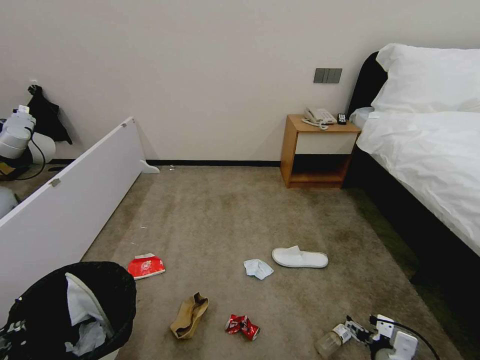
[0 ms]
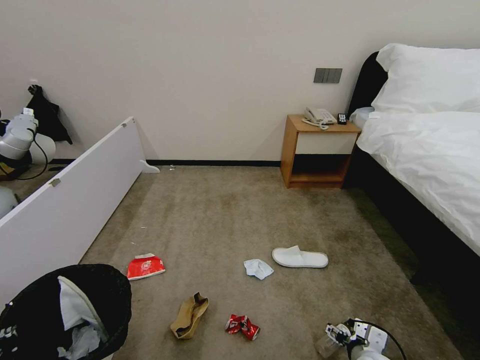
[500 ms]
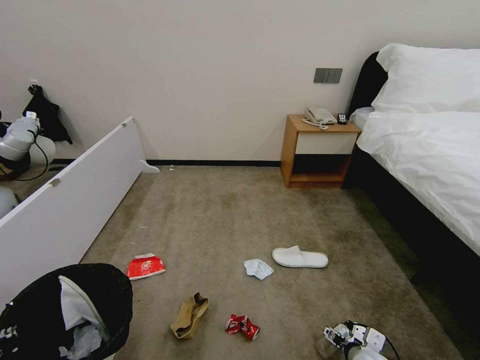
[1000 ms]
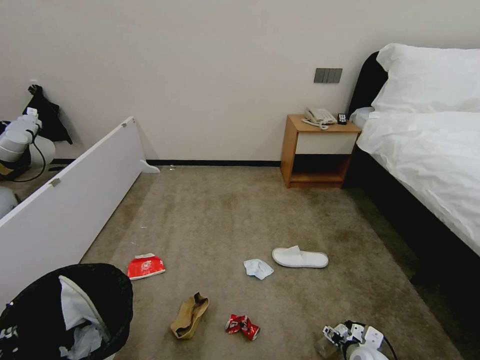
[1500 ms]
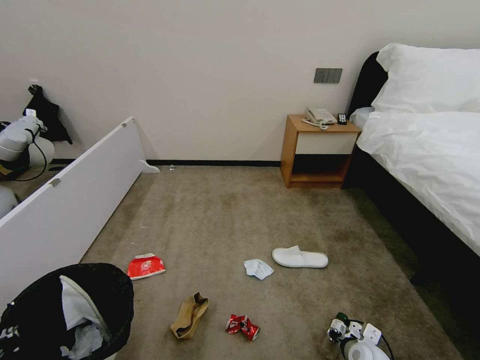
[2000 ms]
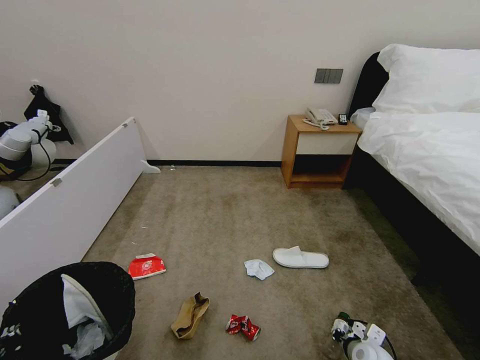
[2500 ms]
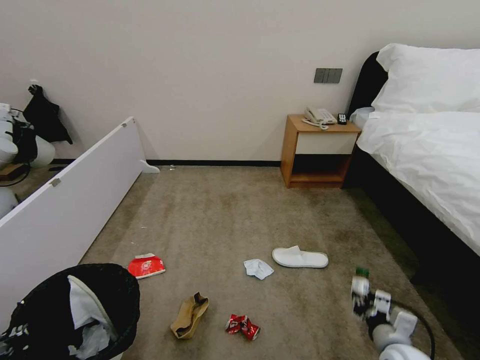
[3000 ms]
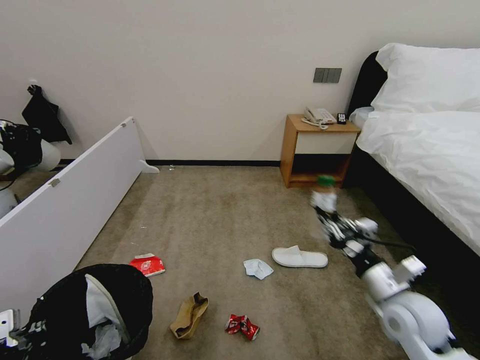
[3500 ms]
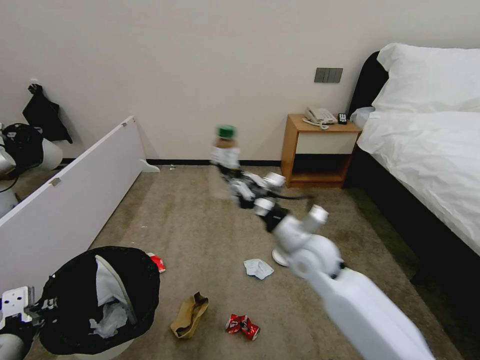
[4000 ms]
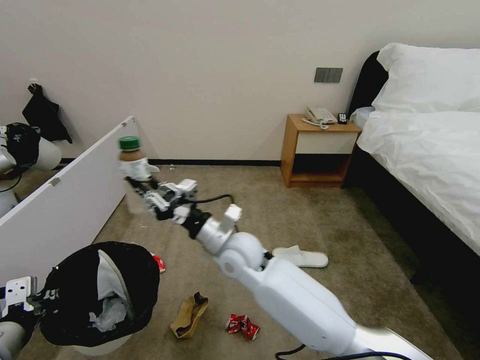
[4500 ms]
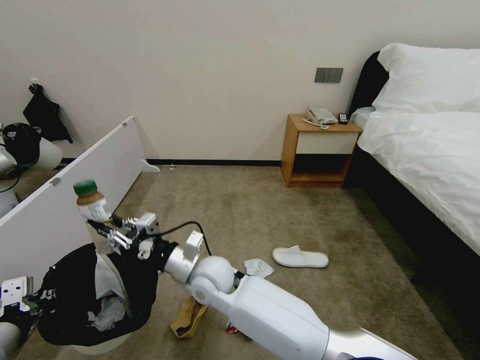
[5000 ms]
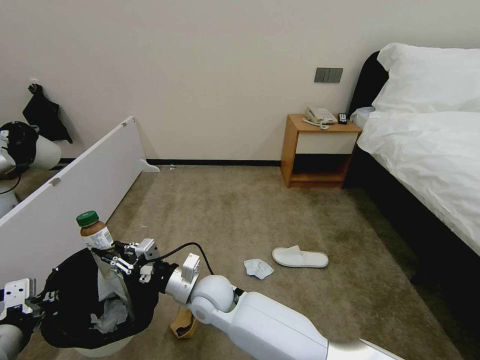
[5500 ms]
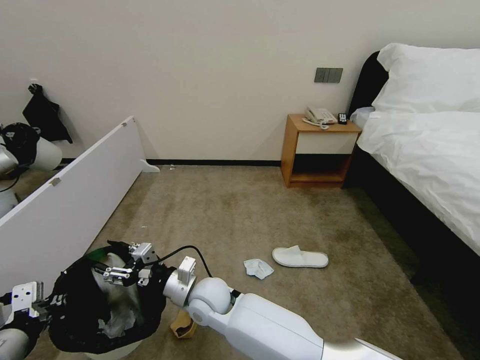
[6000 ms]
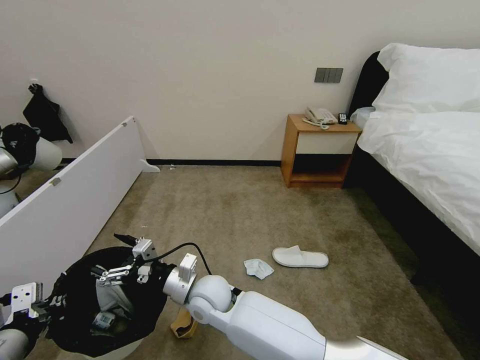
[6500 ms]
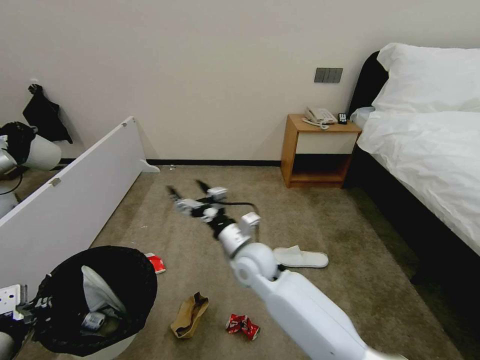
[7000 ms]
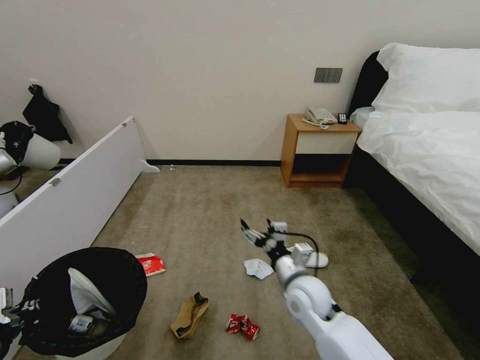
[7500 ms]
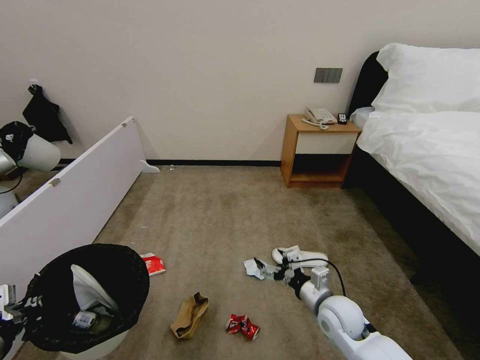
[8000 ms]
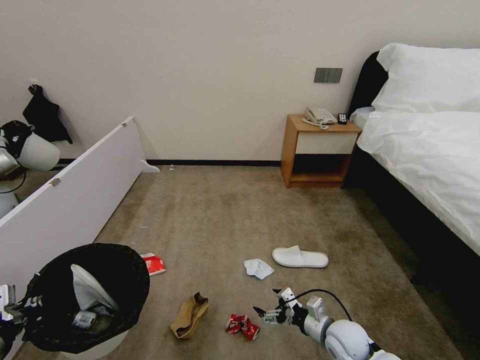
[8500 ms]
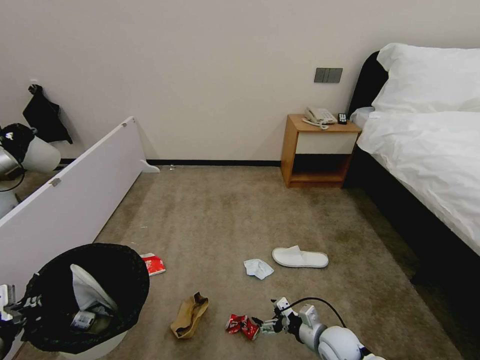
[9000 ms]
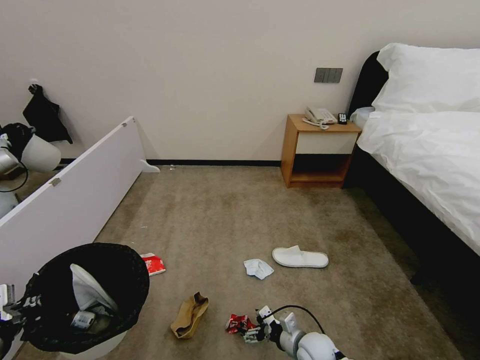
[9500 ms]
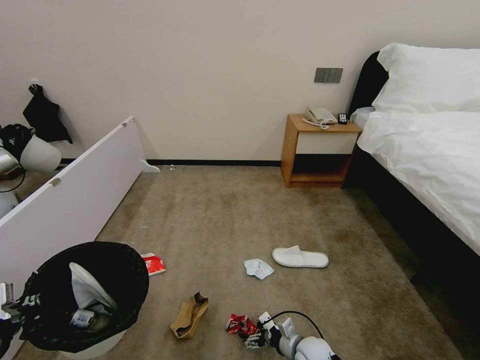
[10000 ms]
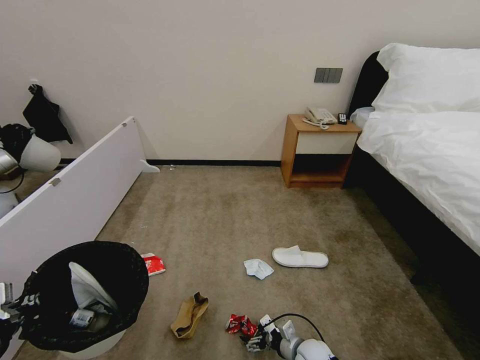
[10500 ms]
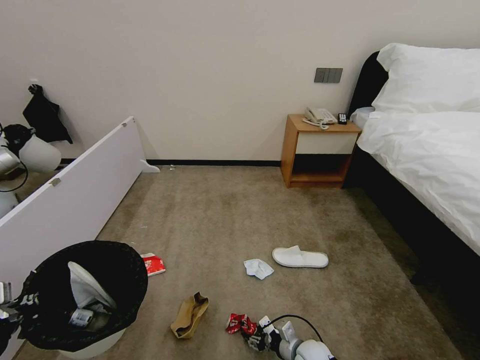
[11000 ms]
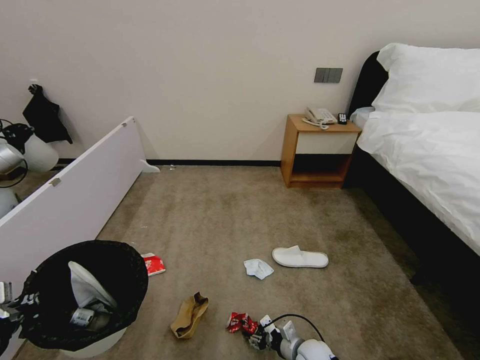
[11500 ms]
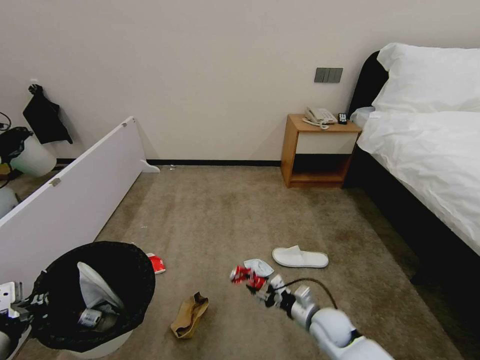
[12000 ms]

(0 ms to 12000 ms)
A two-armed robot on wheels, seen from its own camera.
Task of the whole recording: Pick up the trash bin, then pick up the garbage from the floor and place it into the trash bin.
0 ms - 2000 ms: The right gripper travels downward and forward by some 10 cm, and closes up.
2000 ms - 4000 ms: The right gripper shifts roughly 35 cm upward, to the left and forward. The left gripper changes place by approximately 5 cm.
4000 ms - 6000 ms: The right gripper travels to the left and downward by about 25 cm, and opens its fingers.
6000 ms - 8000 ms: The right gripper shifts roughly 30 cm to the right.
8000 ms - 10000 ms: The right gripper shifts some 20 cm downward.
10000 ms - 12000 ms: The right gripper moves upward, roughly 10 cm, and closes.

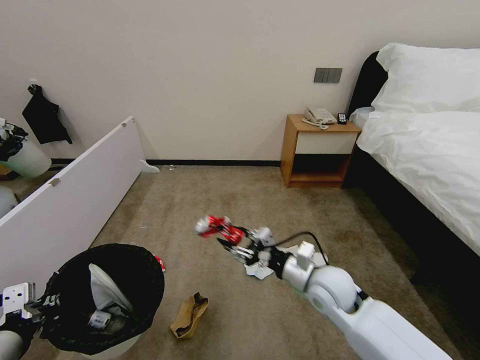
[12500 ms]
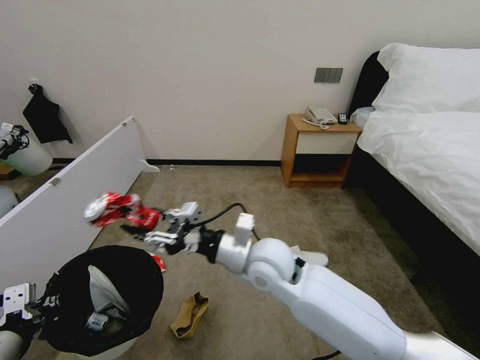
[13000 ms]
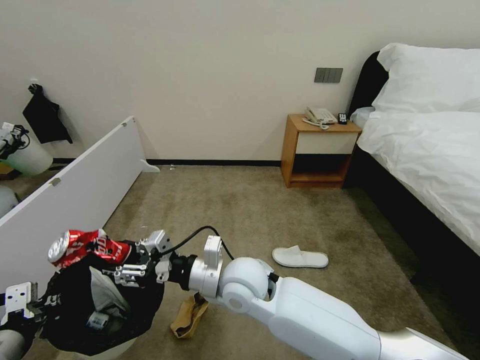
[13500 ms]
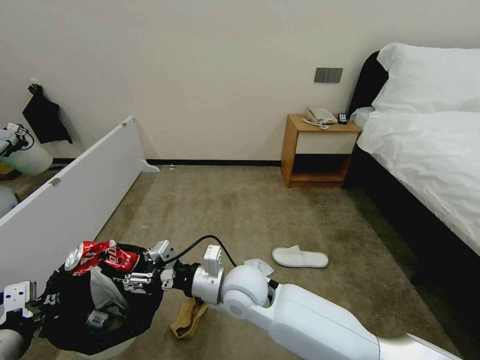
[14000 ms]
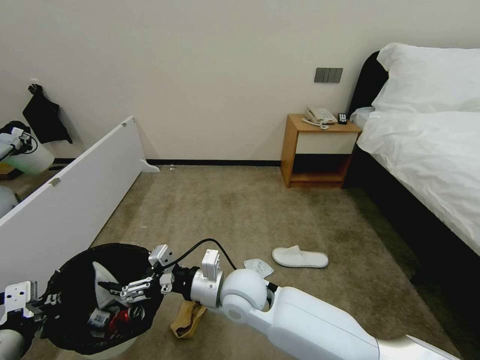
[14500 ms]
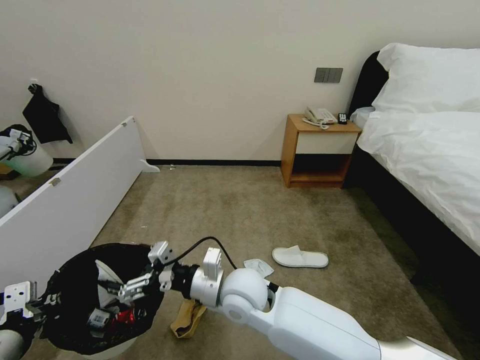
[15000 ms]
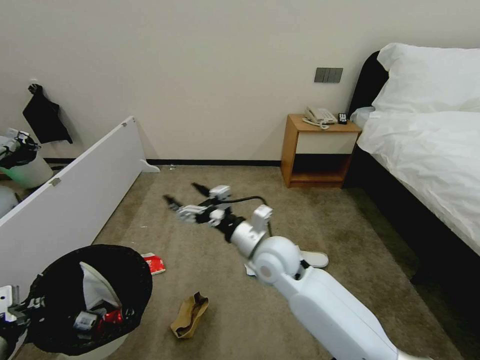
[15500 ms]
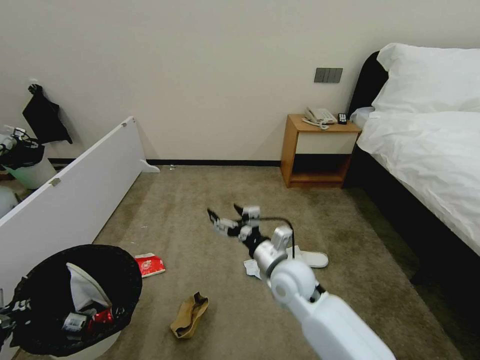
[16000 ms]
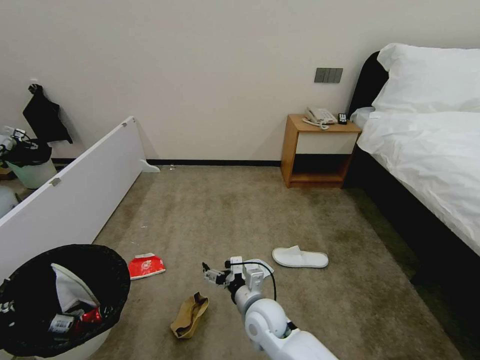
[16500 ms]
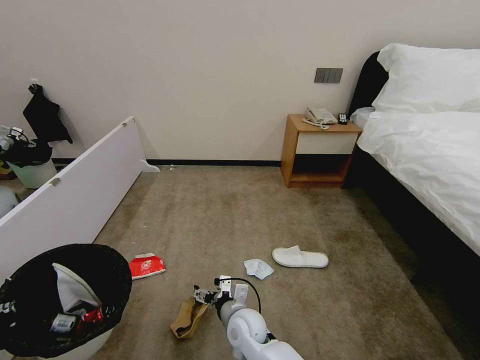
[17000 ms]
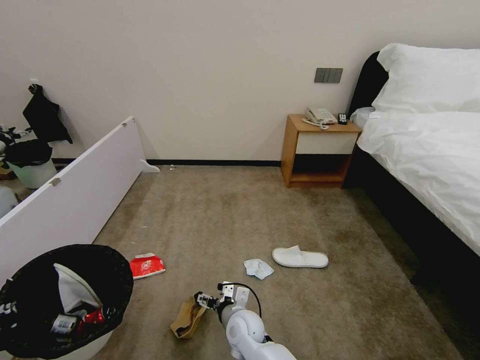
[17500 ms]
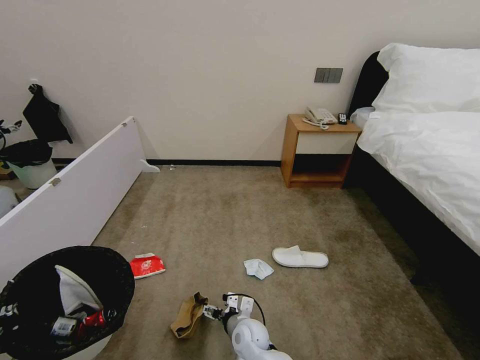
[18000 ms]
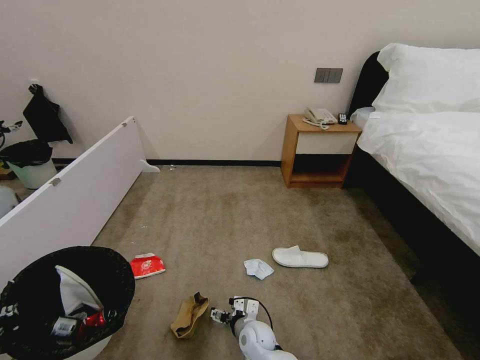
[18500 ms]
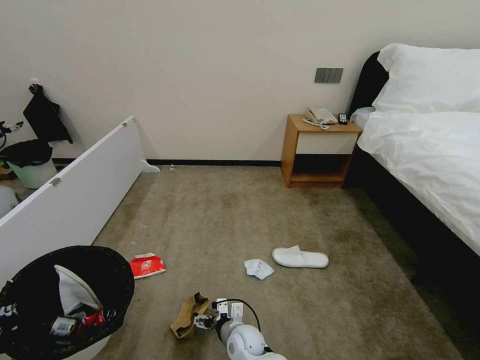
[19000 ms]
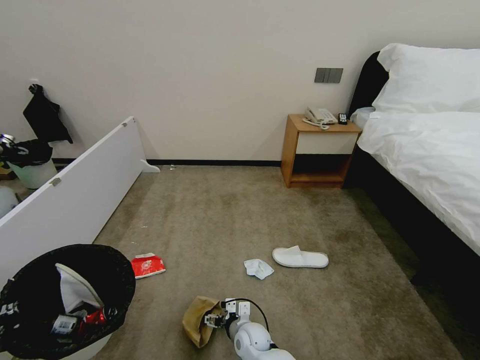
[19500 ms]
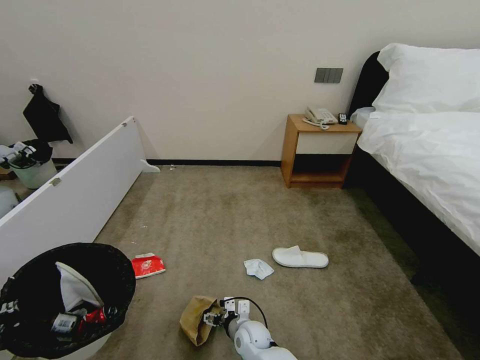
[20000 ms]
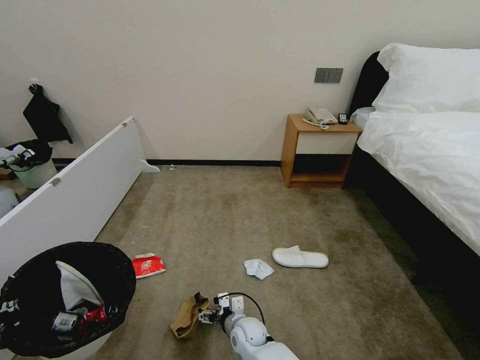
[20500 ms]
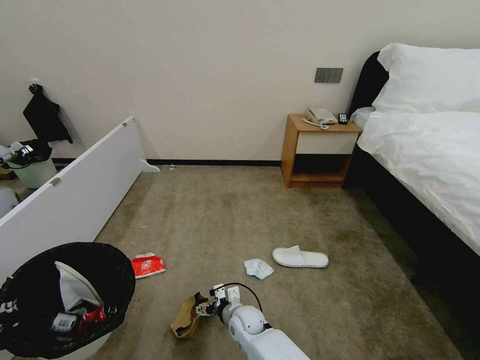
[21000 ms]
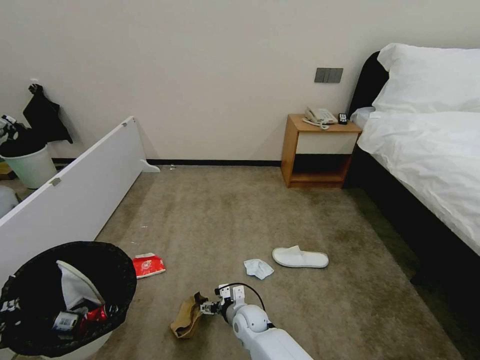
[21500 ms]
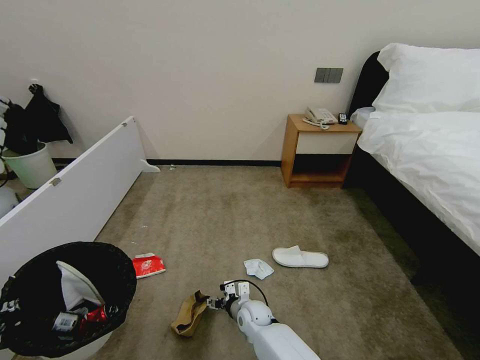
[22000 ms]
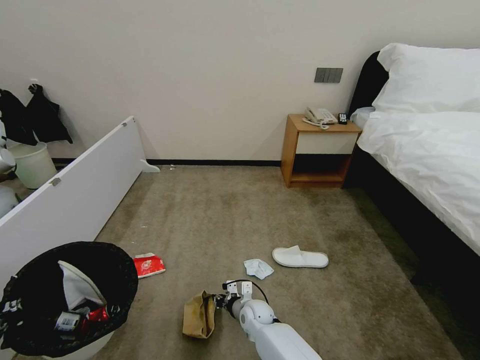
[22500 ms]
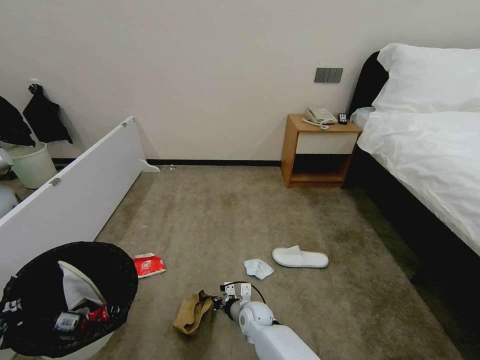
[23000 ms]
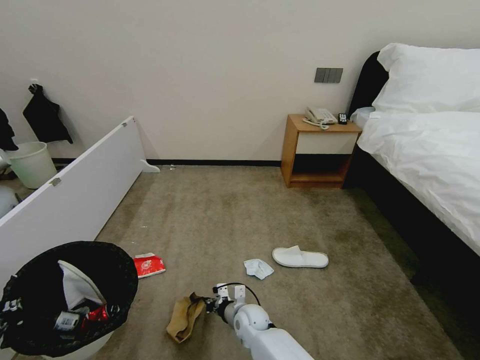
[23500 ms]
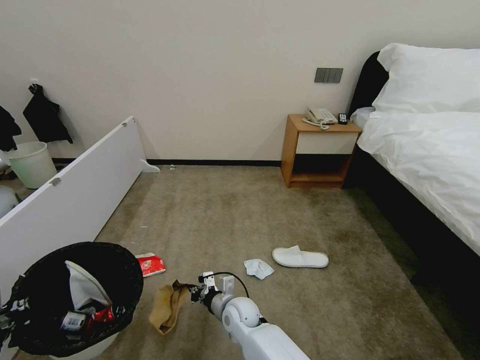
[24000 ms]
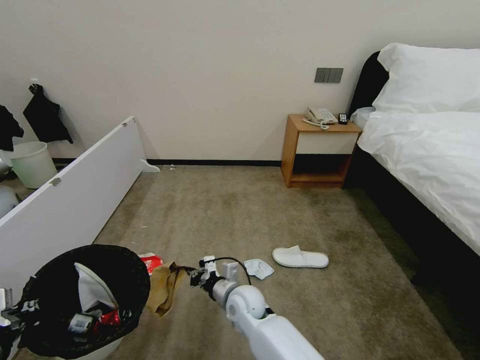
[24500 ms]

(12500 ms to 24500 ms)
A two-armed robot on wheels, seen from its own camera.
Task of the whole recording: Pick up the trash bin, then pick up the garbage from the floor and place it into the trash bin.
12500 ms - 14500 ms: The right gripper moves to the left, roughly 20 cm.
14500 ms - 16500 ms: The right gripper moves downward and to the right, some 15 cm; the left gripper shifts by about 5 cm.
16500 ms - 18500 ms: The right gripper moves downward, approximately 15 cm.
18500 ms - 20500 ms: There are only small adjustments of the grippers.
20500 ms - 22500 ms: The right gripper travels forward by some 5 cm, and closes its fingers.
22500 ms - 24500 ms: The right gripper goes some 15 cm upward.

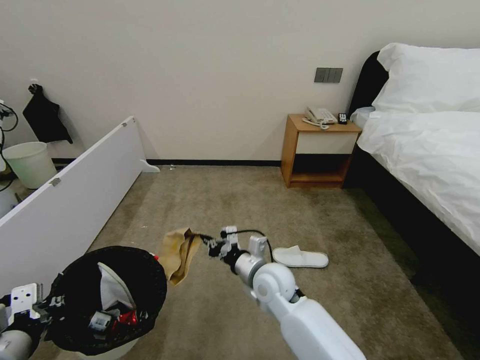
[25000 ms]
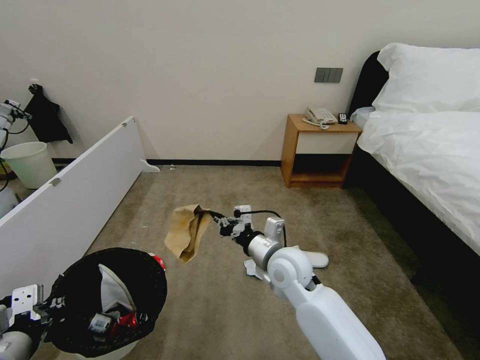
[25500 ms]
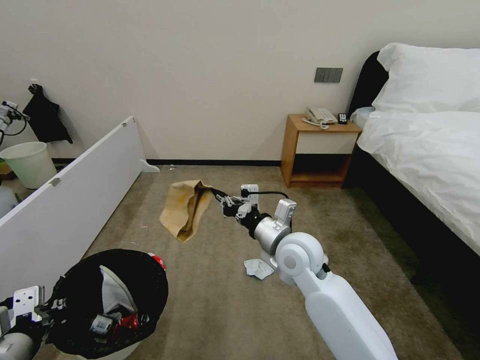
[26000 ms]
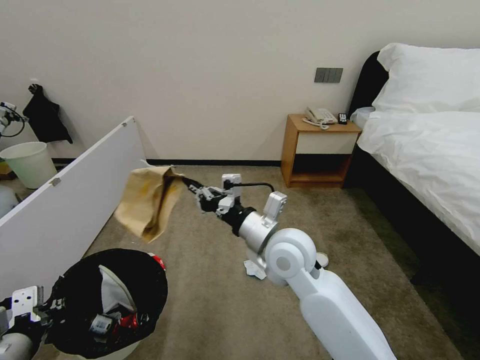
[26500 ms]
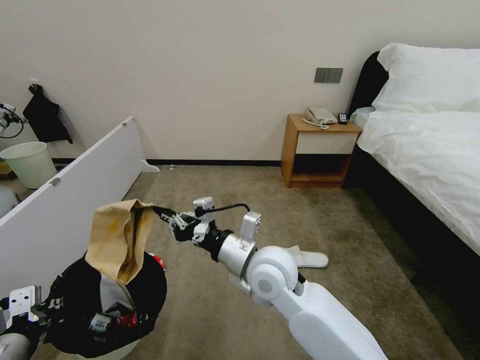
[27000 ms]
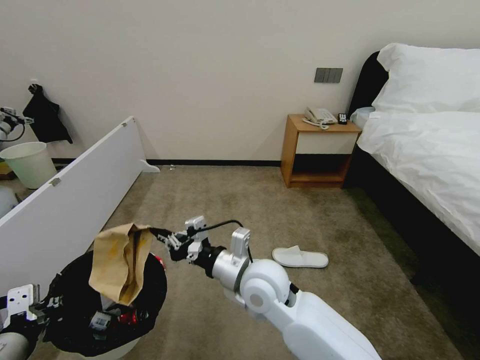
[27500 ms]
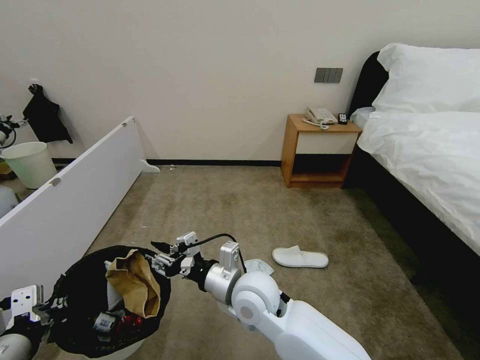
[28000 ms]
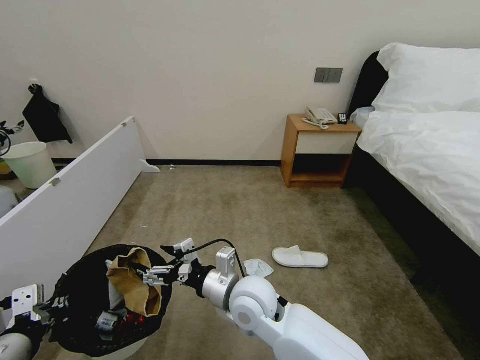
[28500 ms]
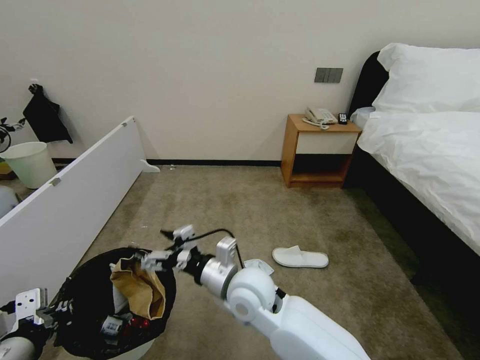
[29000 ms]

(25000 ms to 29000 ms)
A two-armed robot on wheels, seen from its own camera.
Task of the whole recording: Pick up the trash bin, then pick up the garbage from the floor and place it into the trash bin.
25000 ms - 27000 ms: The right gripper travels upward by about 10 cm.
27000 ms - 29000 ms: The right gripper heads downward, covering roughly 5 cm, and opens.
